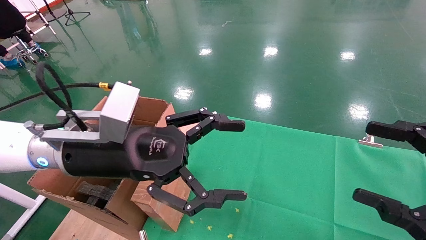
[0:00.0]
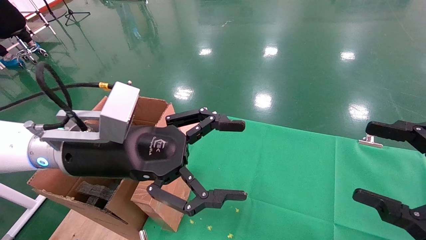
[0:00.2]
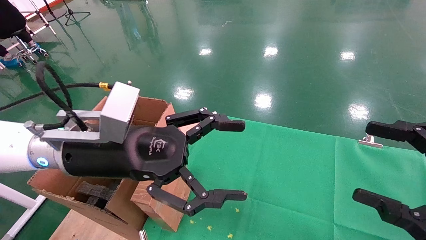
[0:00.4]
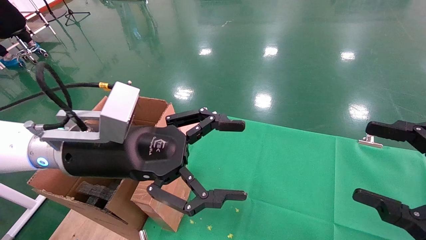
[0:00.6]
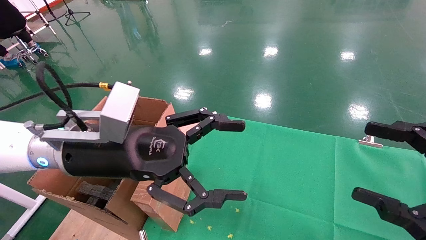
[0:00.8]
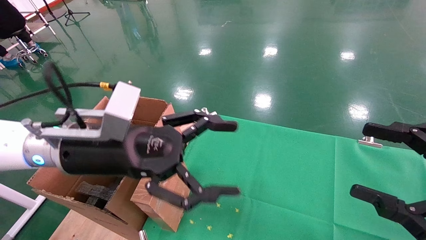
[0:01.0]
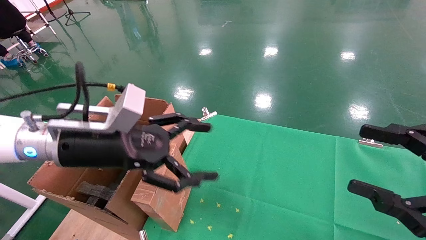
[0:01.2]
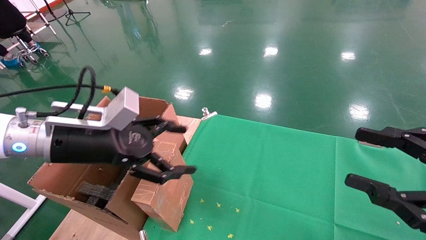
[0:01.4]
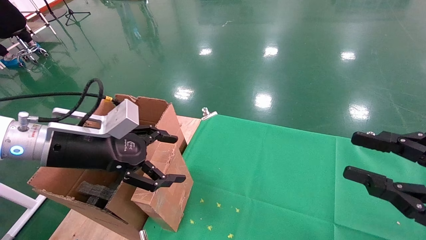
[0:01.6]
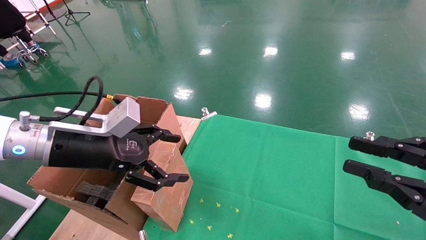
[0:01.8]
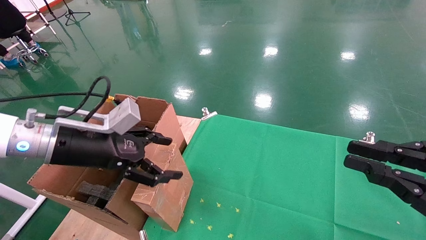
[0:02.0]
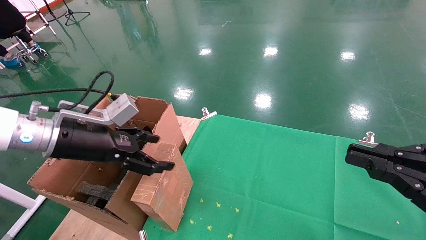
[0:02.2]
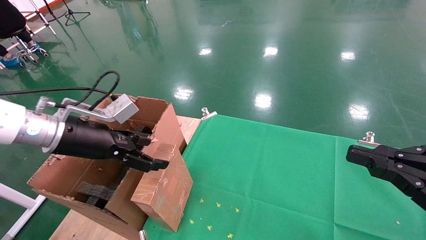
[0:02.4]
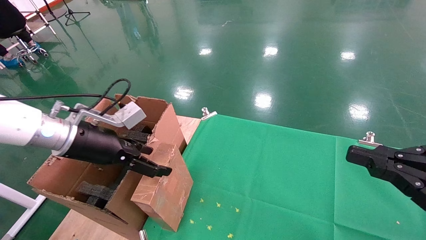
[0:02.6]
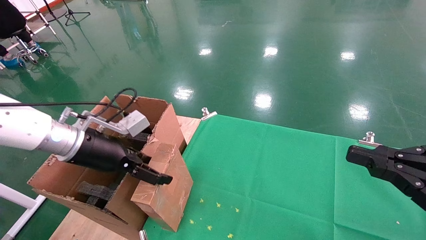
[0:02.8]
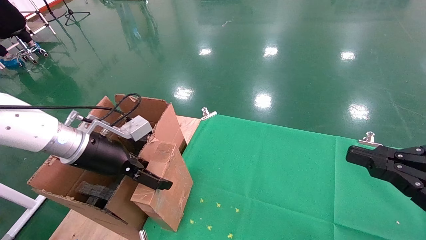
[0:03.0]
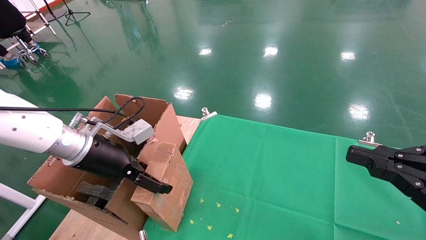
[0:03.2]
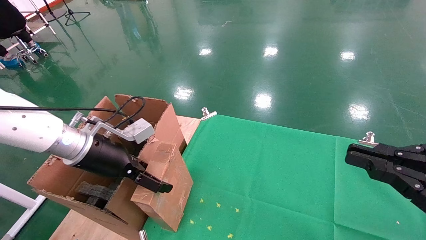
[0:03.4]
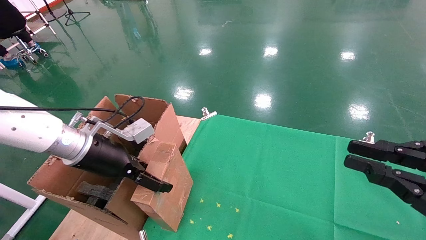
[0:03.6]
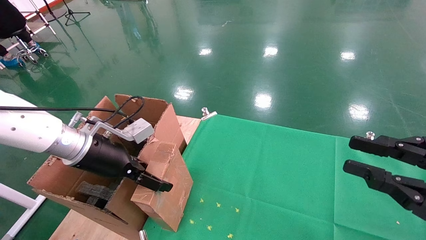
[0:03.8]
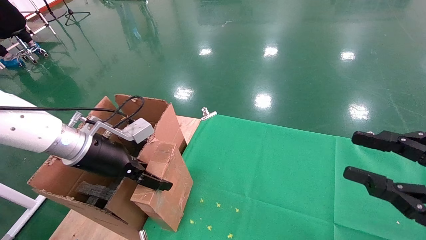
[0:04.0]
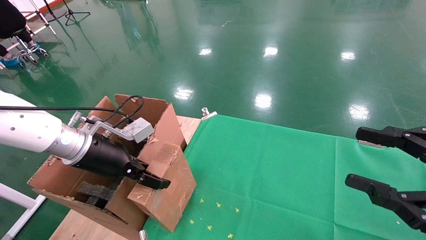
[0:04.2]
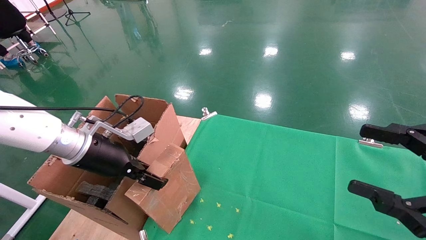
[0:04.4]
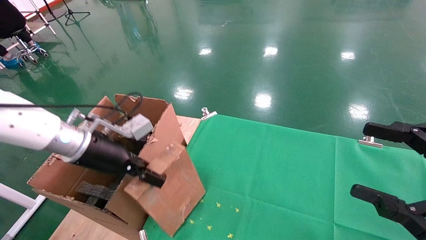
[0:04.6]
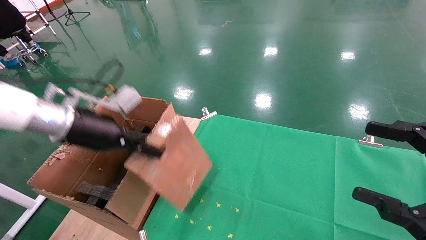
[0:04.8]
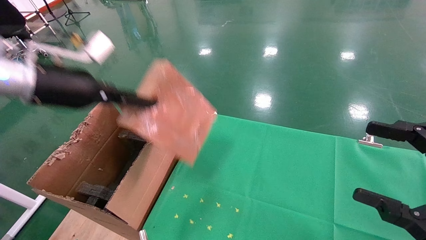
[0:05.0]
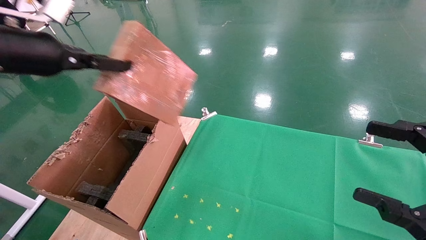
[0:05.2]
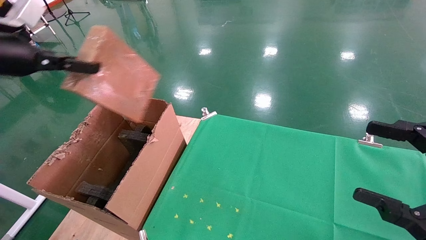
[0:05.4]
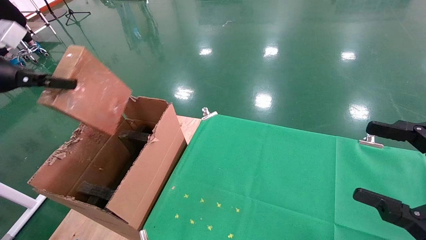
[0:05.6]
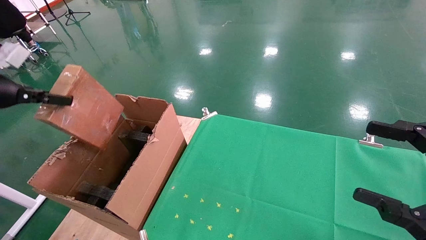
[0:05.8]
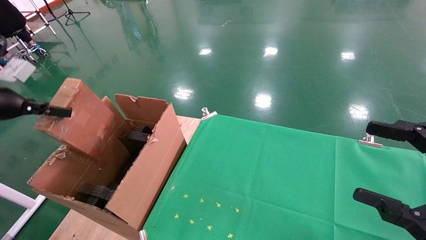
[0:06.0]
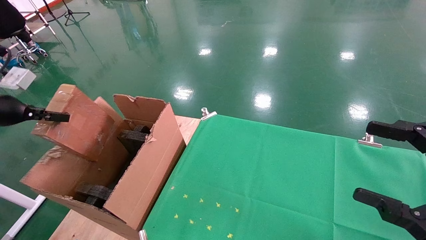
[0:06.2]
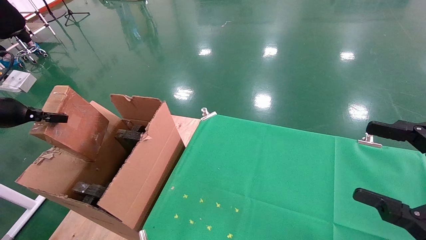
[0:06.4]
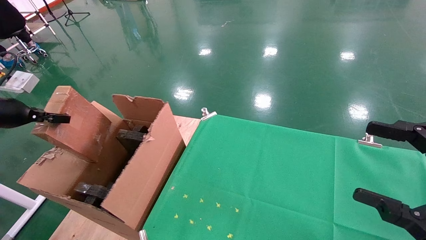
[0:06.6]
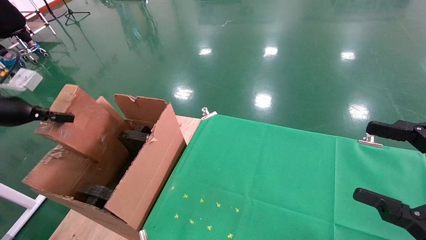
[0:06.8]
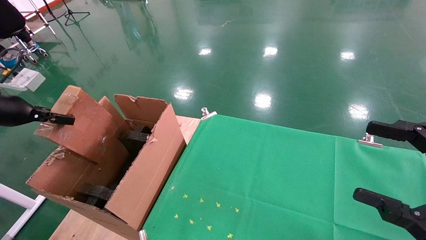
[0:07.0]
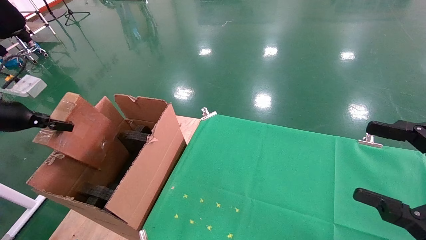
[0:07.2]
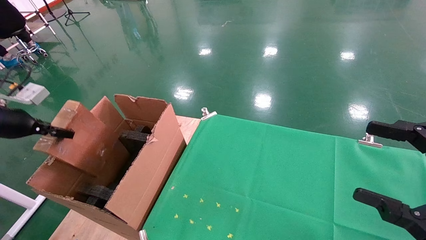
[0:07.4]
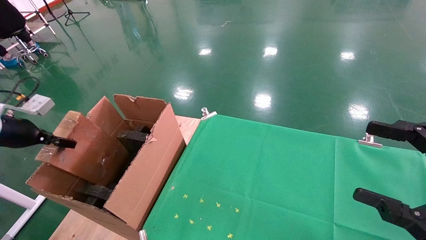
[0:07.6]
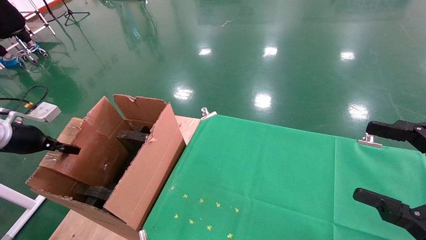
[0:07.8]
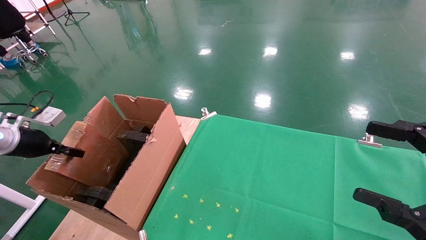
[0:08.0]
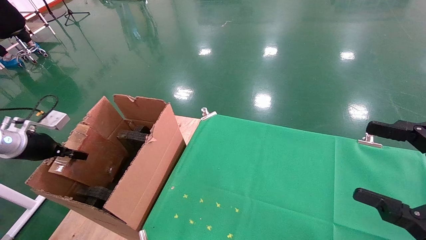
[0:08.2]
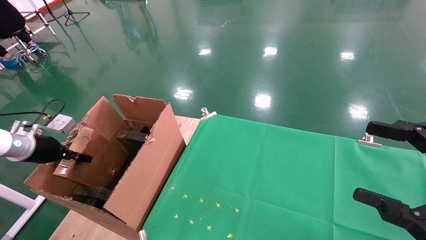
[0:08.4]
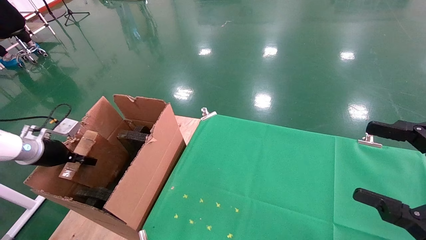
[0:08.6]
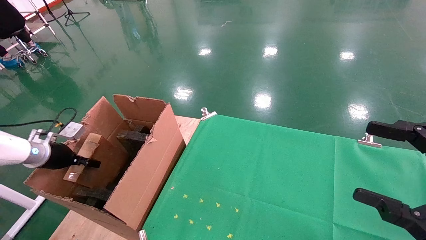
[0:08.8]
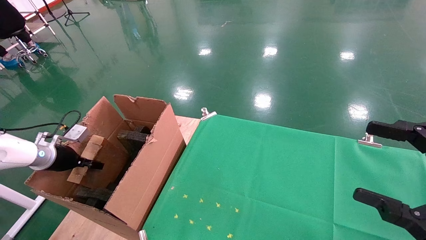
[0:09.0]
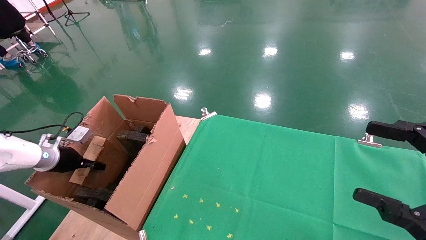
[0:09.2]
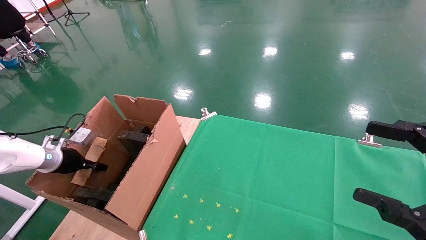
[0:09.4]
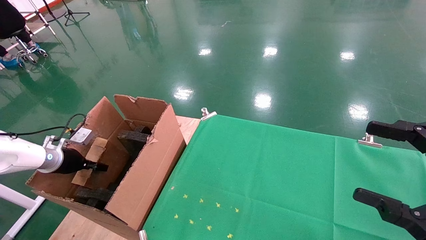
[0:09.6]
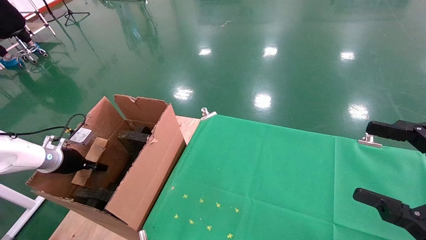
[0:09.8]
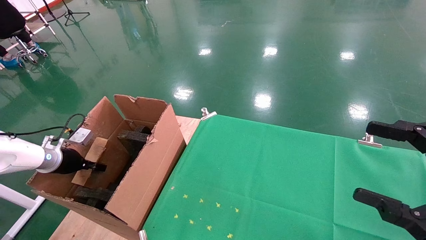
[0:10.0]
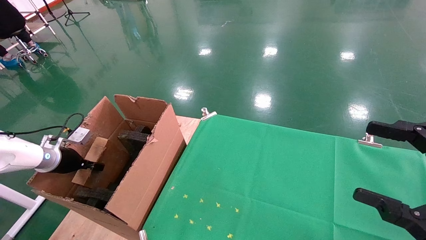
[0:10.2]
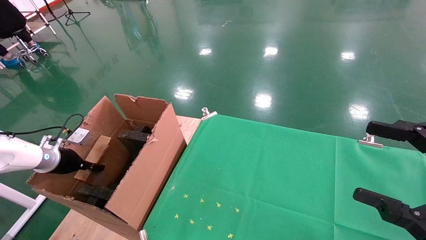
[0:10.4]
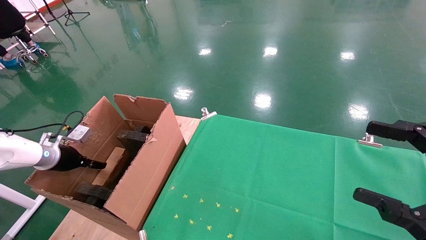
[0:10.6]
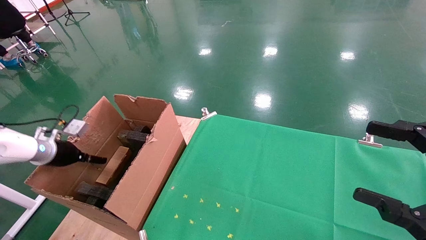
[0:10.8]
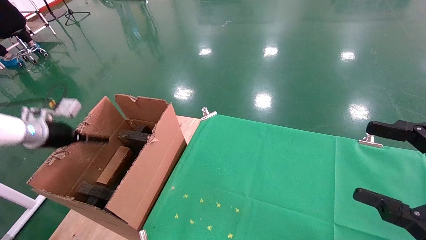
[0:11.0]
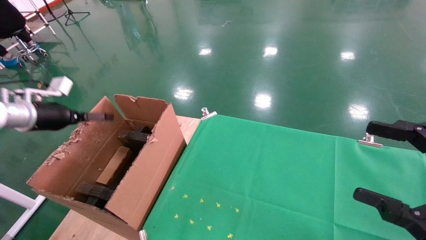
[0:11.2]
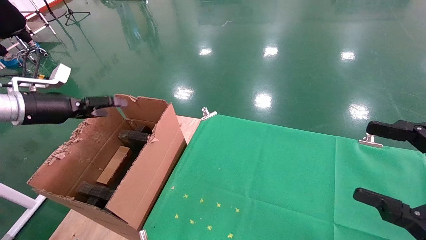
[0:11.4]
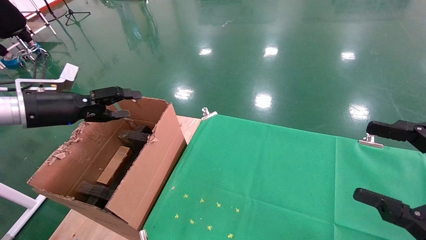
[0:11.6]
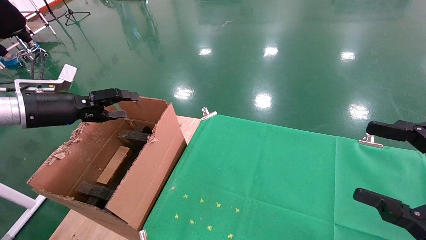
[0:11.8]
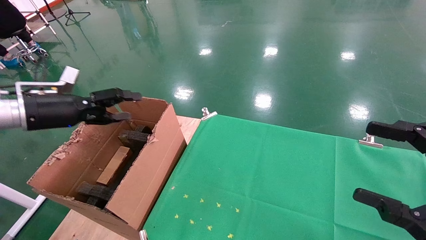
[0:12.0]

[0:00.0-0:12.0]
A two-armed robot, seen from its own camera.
Task of the whole recording: using a robotic arm to pick up a cardboard box and palace it the carton.
Step, 0:01.4 to 0:04.4: Pick up the mouse and the power cord paper box.
Step, 0:04.6 to 0:11.4: Place the mouse and the power cord paper box into the container.
0:00.0 to 0:01.6: The left gripper is displaced to the left by roughly 10 cm. Meanwhile the right gripper closes up.
0:01.6 to 0:03.0: The left gripper ends up roughly 5 cm from where it was, while the right gripper closes up.
0:03.0 to 0:04.4: The left gripper closes up. The right gripper opens.
0:04.4 to 0:06.0: The left gripper is displaced to the left by some 25 cm.
0:06.0 to 0:07.6: The left gripper is displaced downward by roughly 5 cm.
0:07.6 to 0:09.0: The left gripper moves downward and forward, roughly 10 cm.
0:09.0 to 0:10.4: The grippers move only a little.
0:10.4 to 0:12.0: The left gripper goes approximately 20 cm upward and to the right, and opens up.

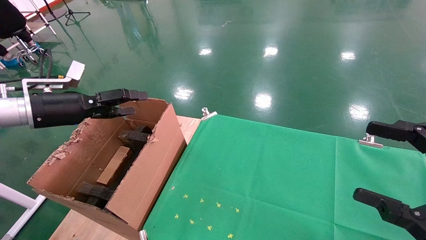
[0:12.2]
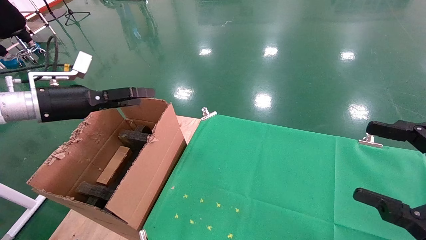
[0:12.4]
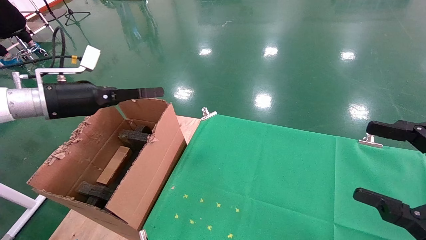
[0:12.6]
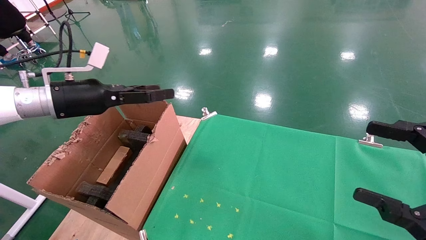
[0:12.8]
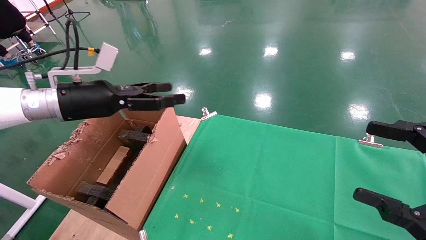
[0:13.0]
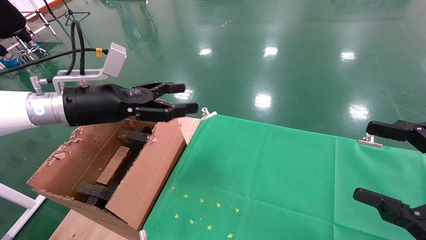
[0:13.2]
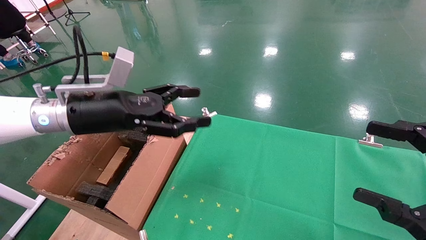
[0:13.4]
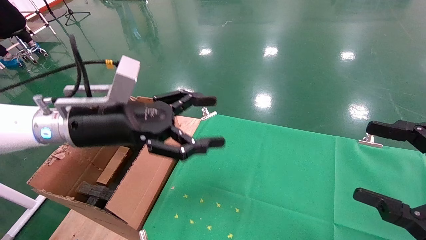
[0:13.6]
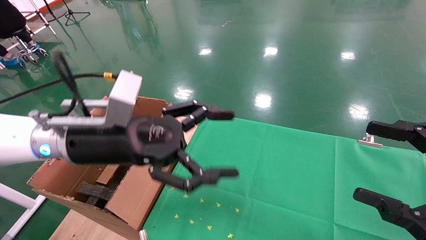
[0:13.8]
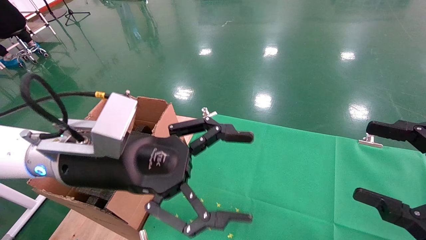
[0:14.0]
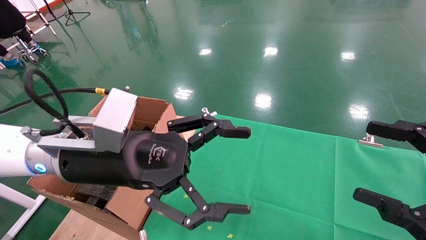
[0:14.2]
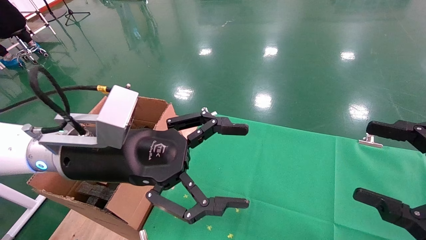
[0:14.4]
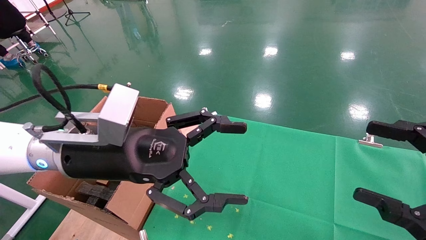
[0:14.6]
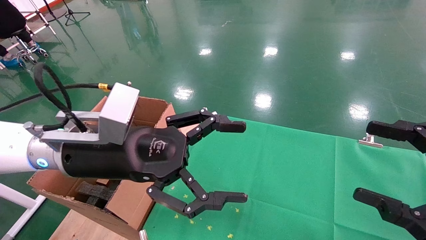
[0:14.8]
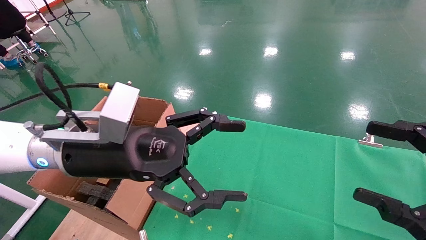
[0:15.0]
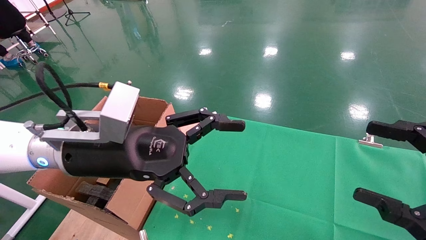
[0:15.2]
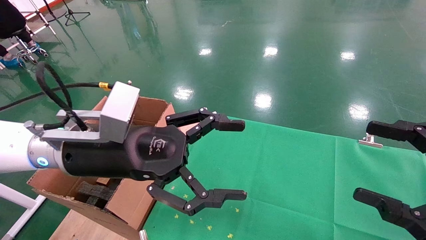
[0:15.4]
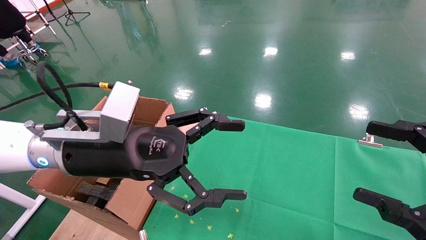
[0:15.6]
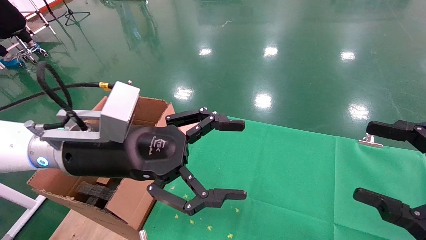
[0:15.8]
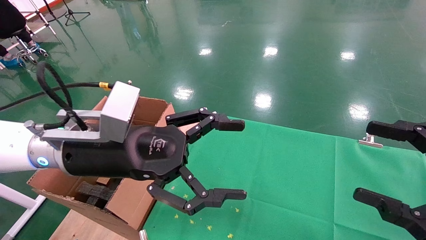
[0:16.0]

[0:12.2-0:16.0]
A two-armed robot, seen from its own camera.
Task of the whole recording: using a robotic arm to pick up a cardboard box and palace it the carton.
0:12.2 to 0:13.4: The left gripper is displaced to the right by approximately 15 cm.
0:13.4 to 0:14.8: The left gripper travels to the right and backward by approximately 10 cm.
0:14.8 to 0:16.0: Both grippers stay put.

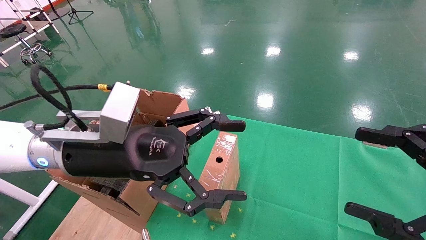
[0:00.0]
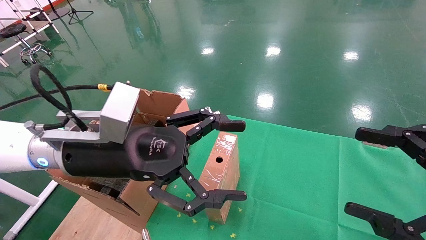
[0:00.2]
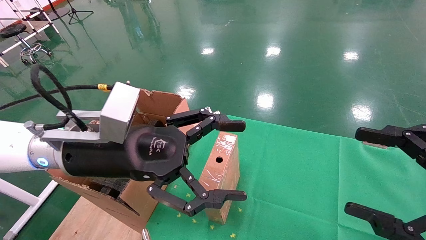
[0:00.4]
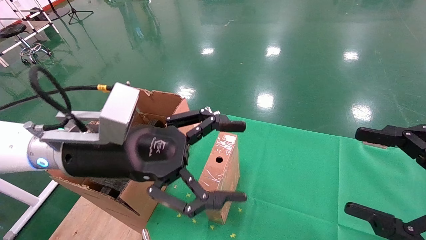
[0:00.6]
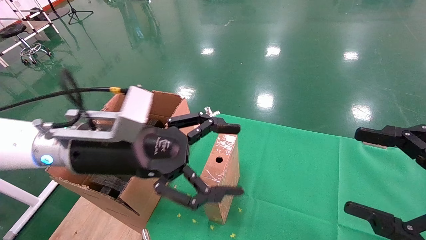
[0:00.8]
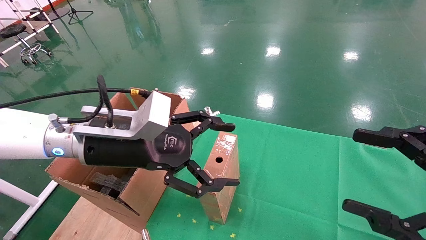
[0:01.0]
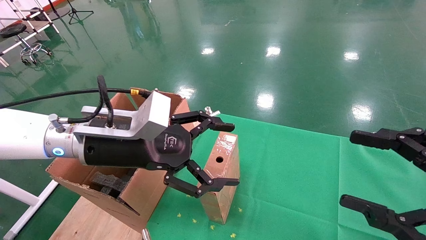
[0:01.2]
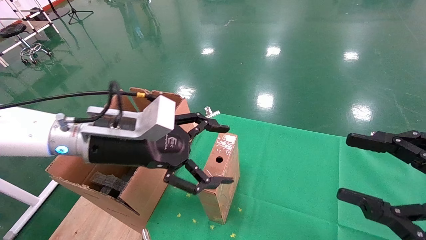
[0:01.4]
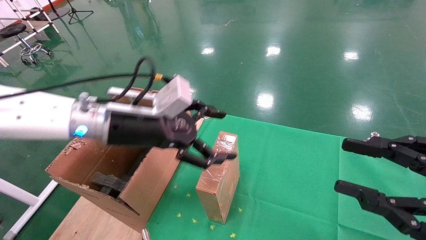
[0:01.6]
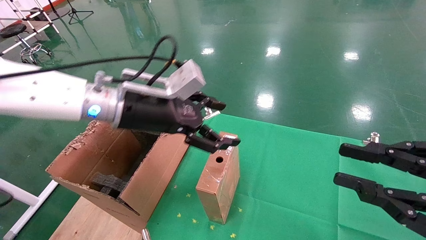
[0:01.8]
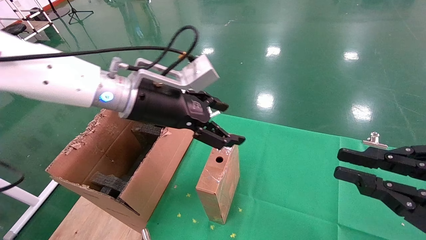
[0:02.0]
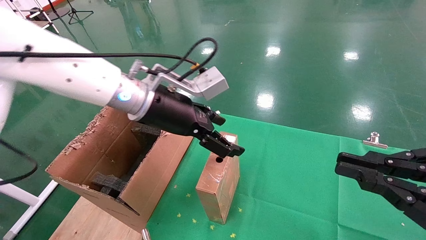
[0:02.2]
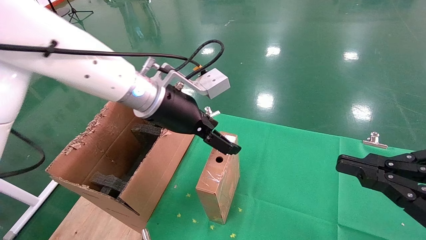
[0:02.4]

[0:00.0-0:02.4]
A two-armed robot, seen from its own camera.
Task of the whole recording: using a robotic arm to pick up a cardboard box and palace it the carton.
0:00.0 to 0:01.2: There are only small adjustments of the grippers.
0:01.2 to 0:02.4: The right gripper closes up; the left gripper is displaced forward and to the right by roughly 10 cm.
